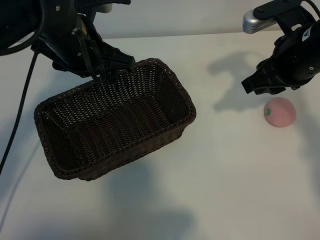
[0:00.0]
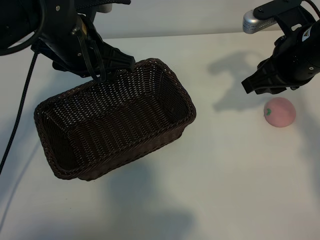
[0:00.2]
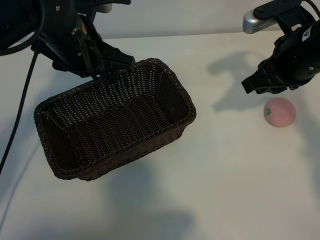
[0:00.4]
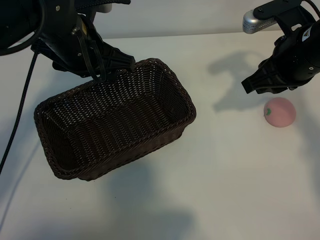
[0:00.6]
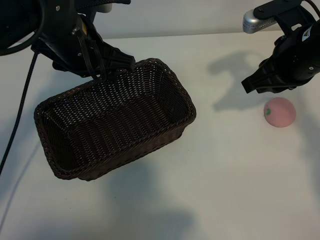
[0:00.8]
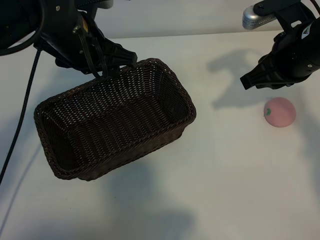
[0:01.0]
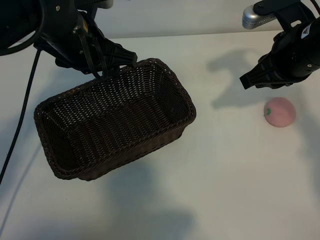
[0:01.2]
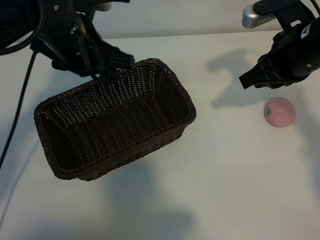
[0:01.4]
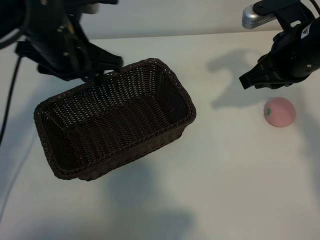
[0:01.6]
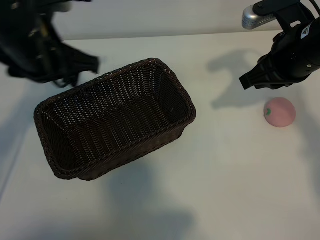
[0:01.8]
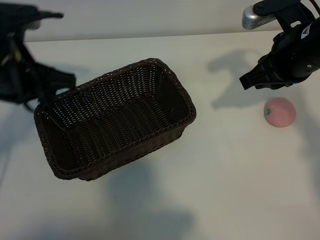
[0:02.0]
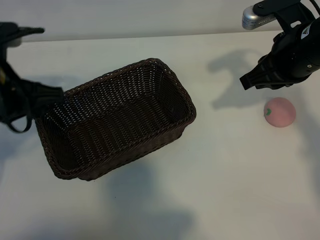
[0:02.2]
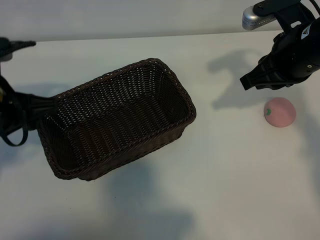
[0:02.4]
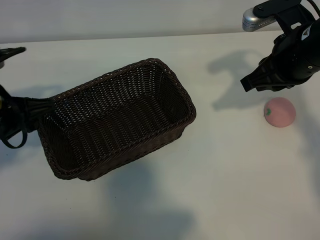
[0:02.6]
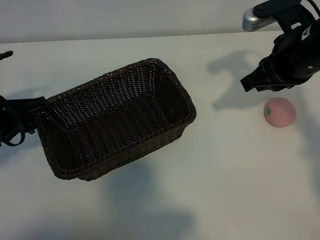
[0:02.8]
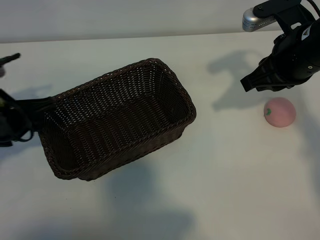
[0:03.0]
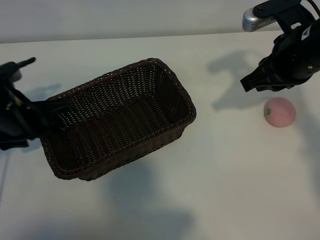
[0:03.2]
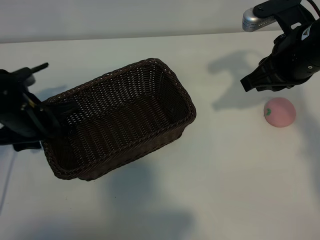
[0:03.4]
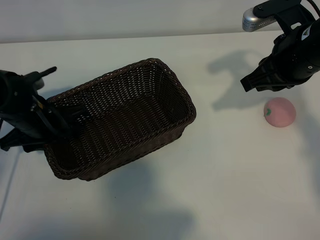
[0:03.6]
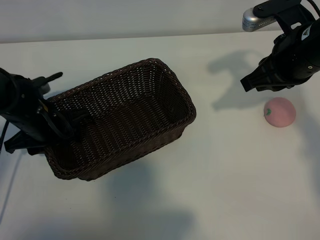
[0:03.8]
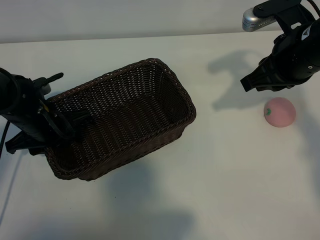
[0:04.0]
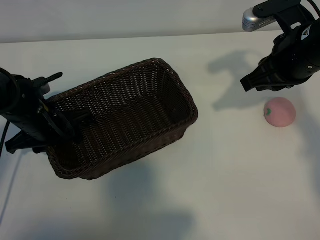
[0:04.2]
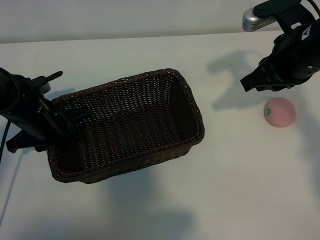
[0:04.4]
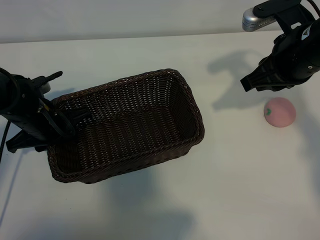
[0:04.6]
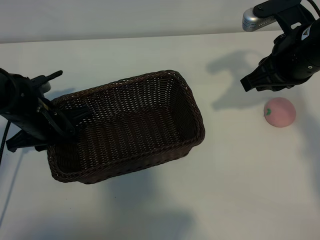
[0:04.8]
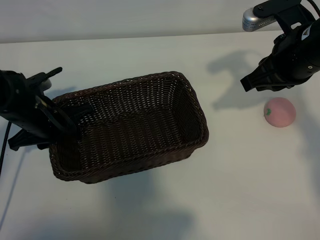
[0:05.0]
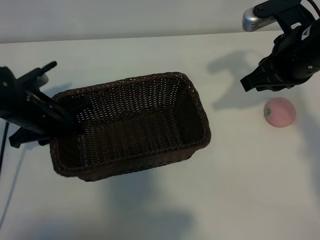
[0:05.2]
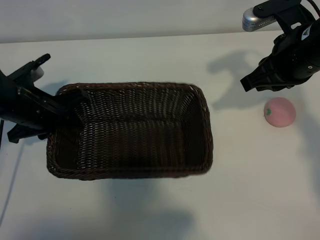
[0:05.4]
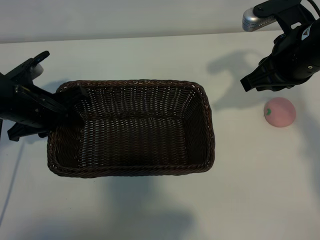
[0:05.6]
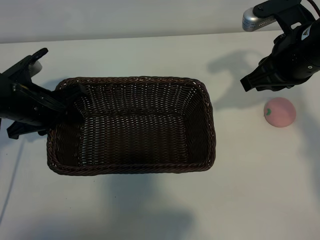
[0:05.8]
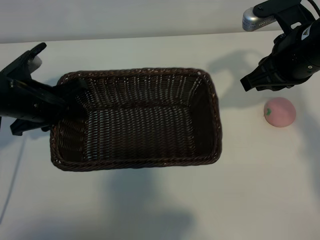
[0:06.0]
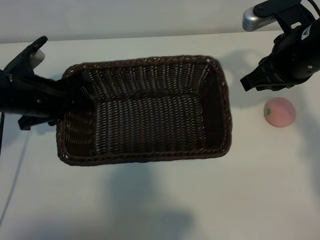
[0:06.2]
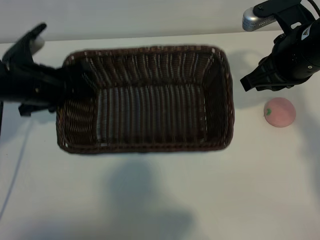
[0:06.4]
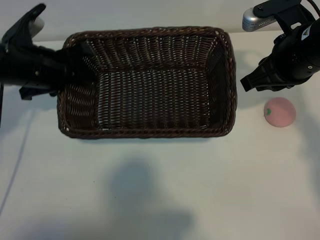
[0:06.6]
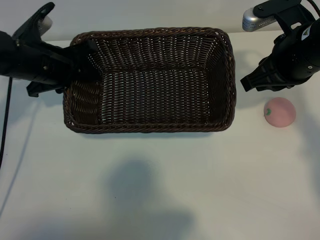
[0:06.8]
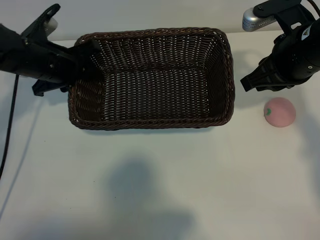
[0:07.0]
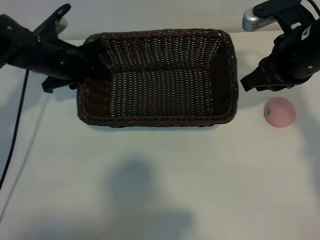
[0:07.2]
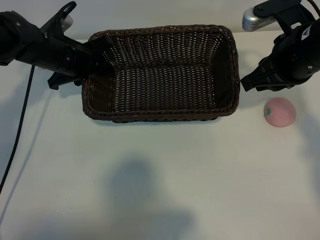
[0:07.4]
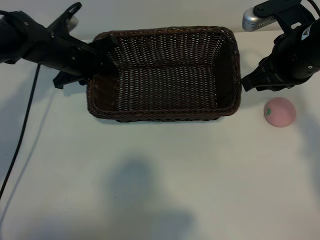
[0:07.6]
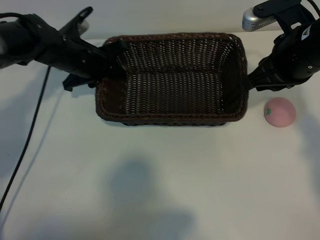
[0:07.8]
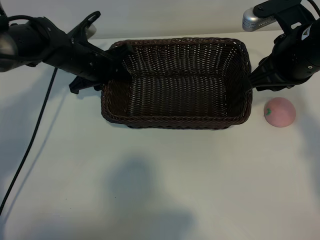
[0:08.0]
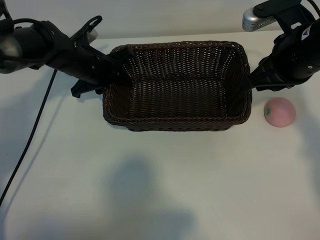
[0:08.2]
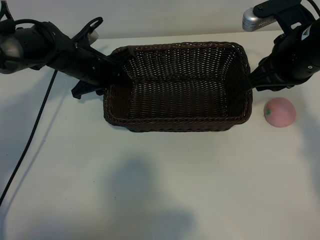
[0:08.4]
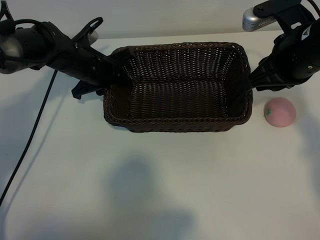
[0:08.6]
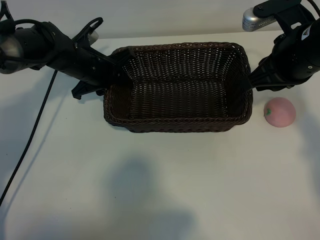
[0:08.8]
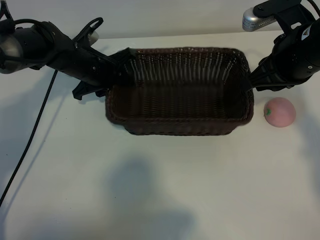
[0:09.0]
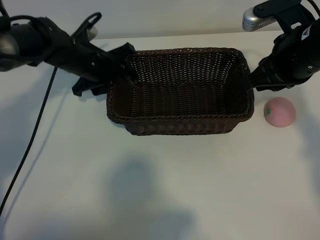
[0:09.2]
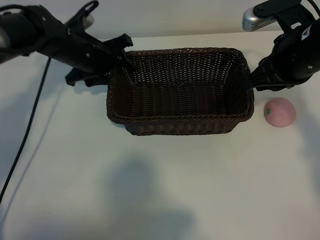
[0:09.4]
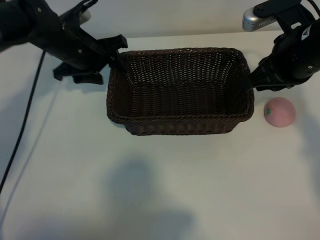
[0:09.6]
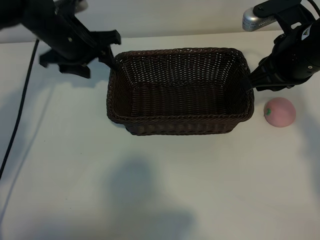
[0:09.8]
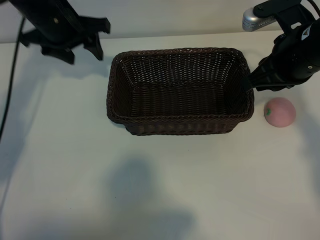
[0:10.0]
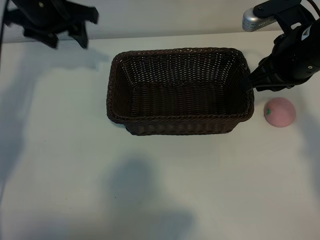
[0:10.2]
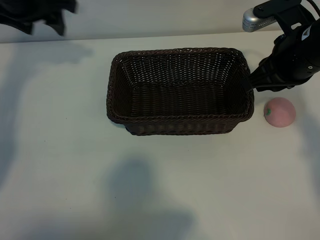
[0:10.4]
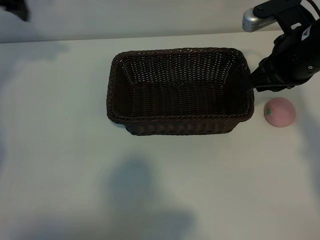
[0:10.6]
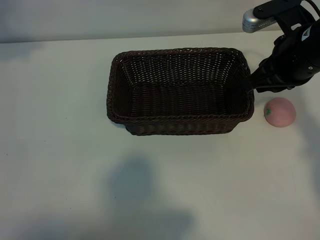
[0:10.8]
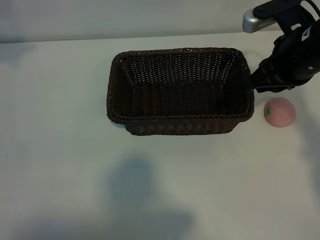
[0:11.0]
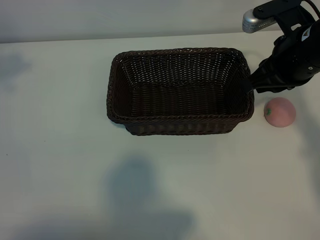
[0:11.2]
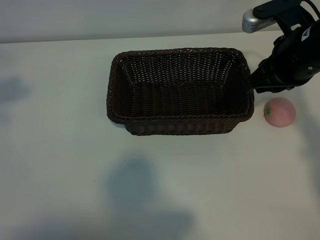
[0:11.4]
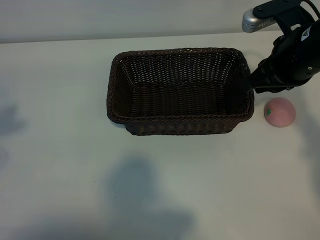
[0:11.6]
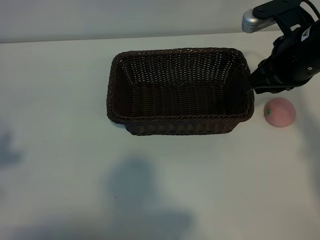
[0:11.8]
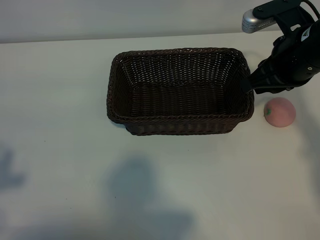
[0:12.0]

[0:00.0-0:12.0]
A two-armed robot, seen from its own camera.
Task of the whole recording: pick up the peach and put it into the basket.
Step, 0:01.0 to 0:04.8: Grasp the basket with left gripper.
Step, 0:05.0 to 0:09.4: Place the basket in the center of view with left gripper.

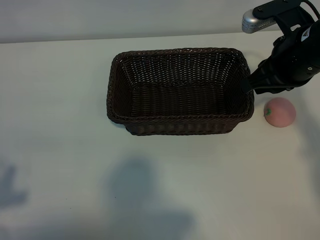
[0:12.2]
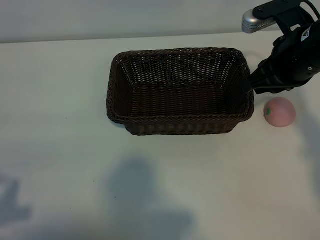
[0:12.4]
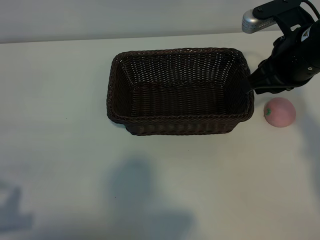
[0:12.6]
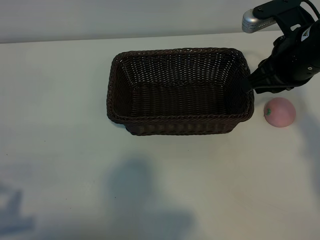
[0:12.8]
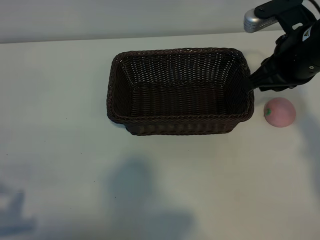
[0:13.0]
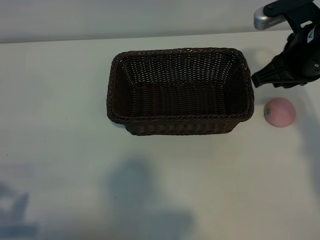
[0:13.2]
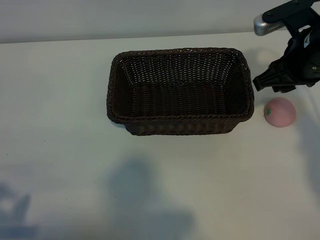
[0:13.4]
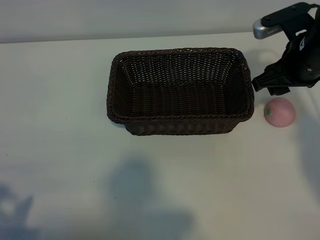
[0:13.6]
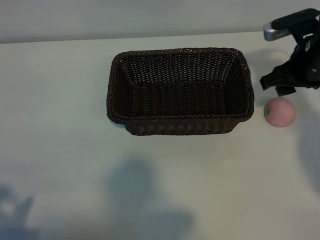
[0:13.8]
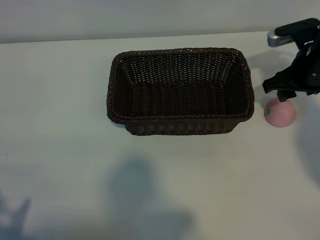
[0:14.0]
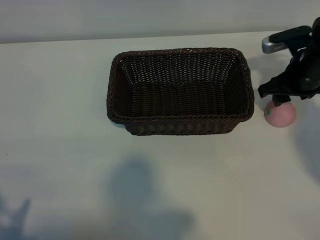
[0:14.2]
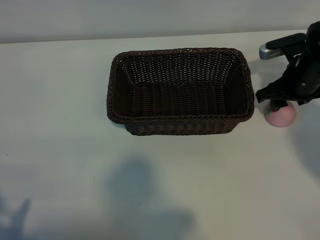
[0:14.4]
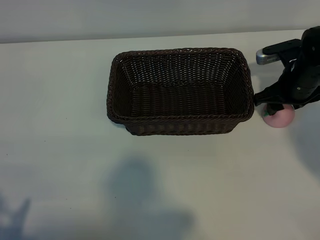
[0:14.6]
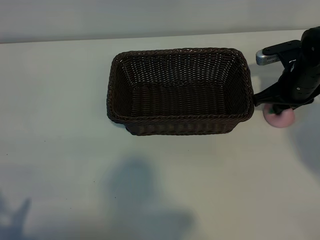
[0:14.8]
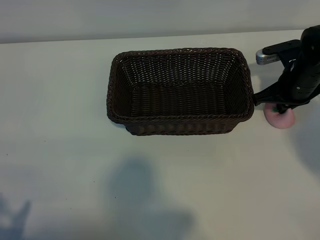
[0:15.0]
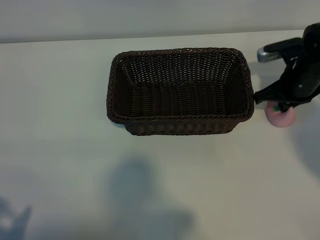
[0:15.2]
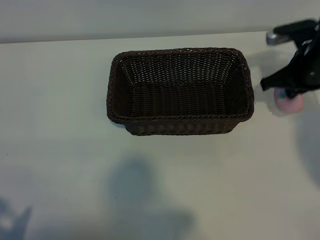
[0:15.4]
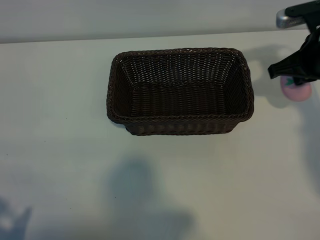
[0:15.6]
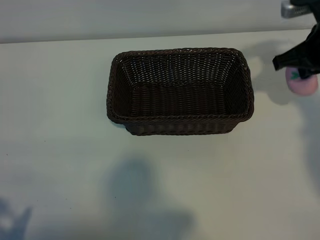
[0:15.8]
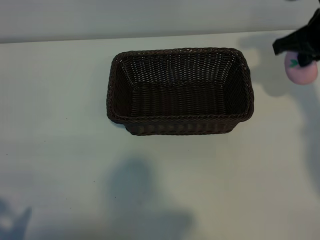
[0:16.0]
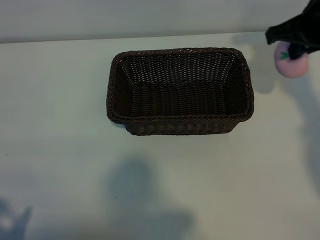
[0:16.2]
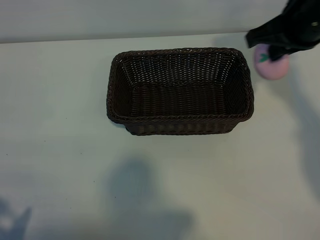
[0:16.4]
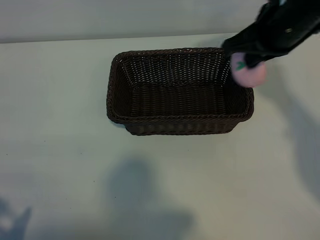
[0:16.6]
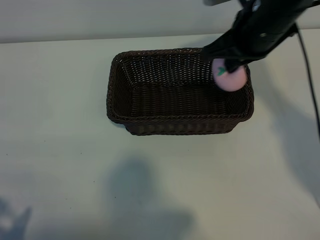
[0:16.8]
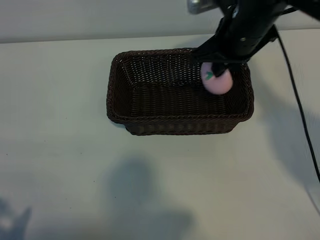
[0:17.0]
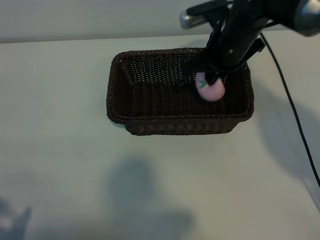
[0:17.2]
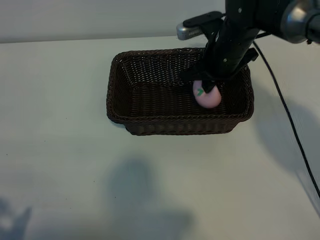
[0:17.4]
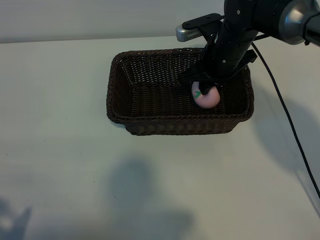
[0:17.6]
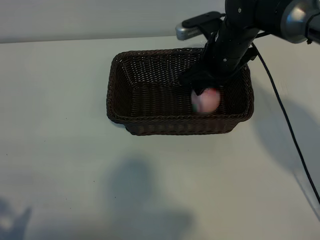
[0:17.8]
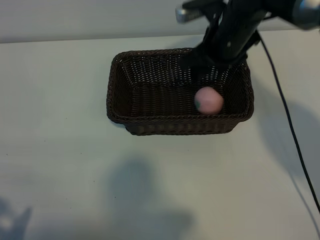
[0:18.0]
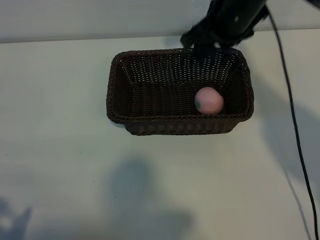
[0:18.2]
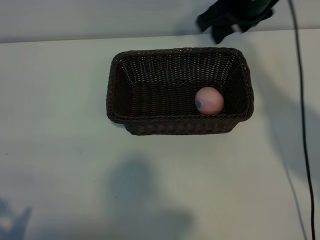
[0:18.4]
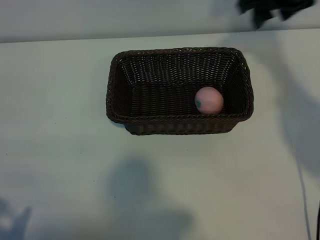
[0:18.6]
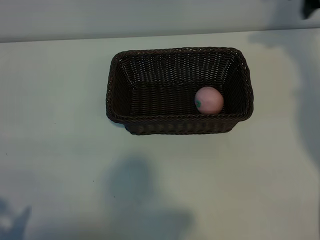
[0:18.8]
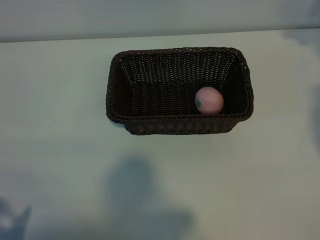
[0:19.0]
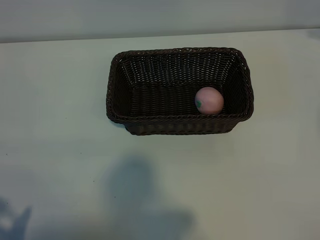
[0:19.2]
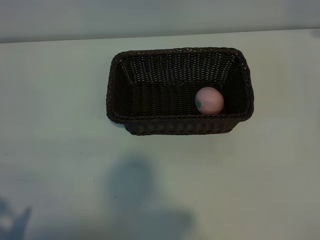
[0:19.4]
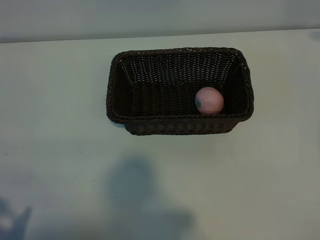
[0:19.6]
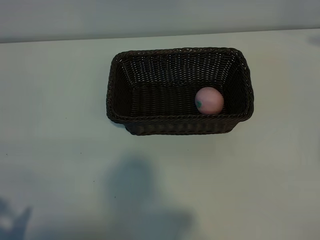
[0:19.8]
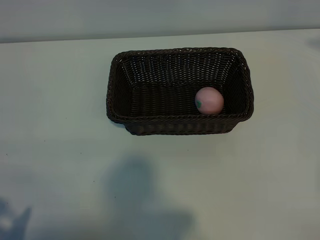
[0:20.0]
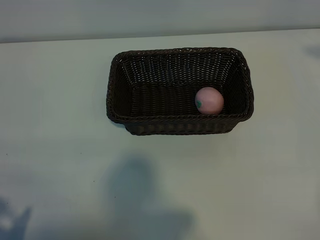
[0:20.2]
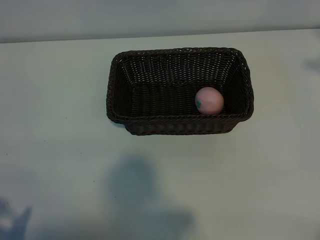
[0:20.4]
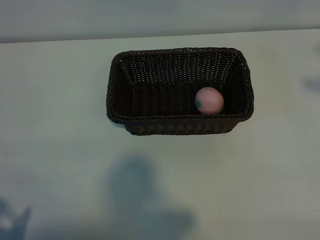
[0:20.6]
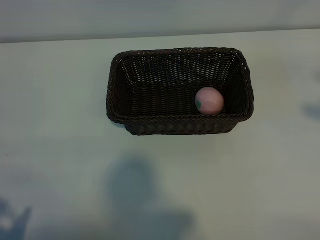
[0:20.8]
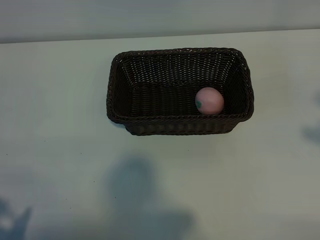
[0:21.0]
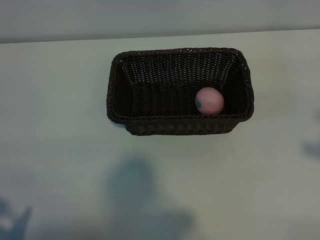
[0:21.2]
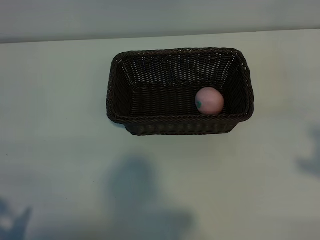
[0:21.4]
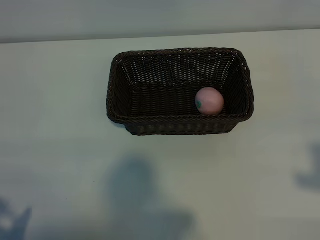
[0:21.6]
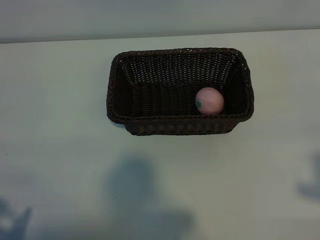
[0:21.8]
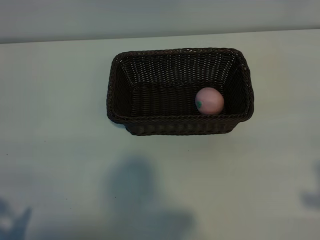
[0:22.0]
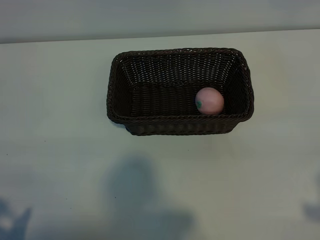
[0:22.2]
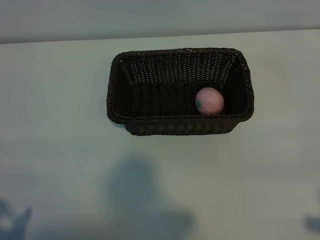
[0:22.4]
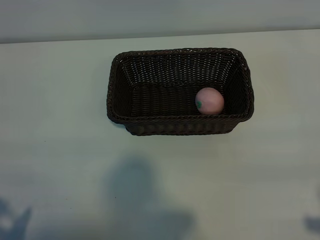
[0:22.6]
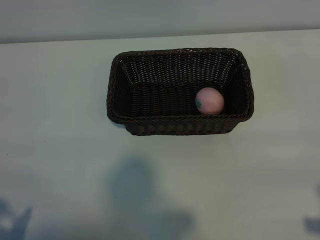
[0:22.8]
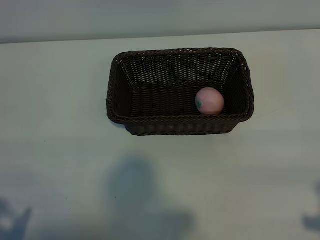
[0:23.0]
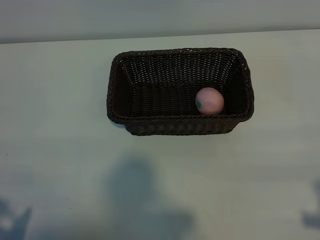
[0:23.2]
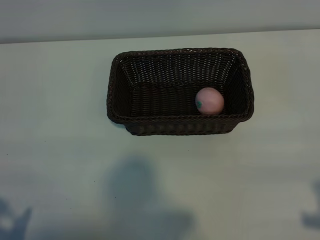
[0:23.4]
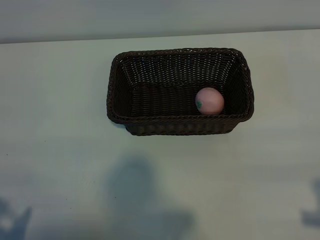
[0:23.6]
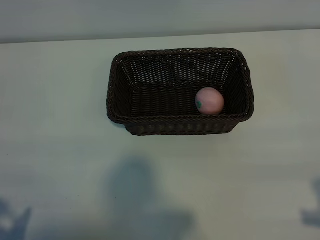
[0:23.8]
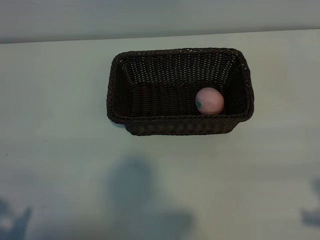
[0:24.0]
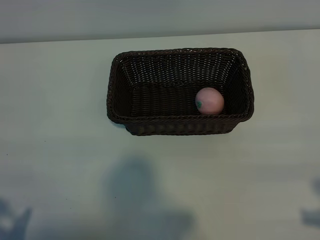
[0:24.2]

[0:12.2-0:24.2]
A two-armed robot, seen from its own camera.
Task of the whole recording: pick up the peach and put it into the basket.
Step, 0:12.2 to 0:15.0: Grasp the peach with right gripper.
Step, 0:15.2 to 0:17.8: Place the peach in the basket with right gripper.
